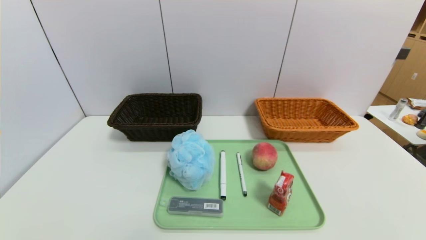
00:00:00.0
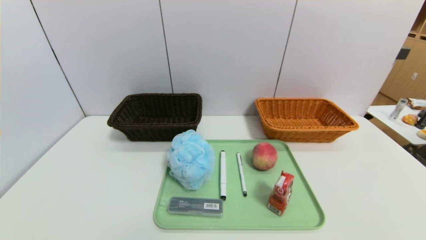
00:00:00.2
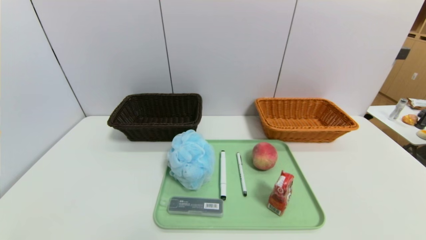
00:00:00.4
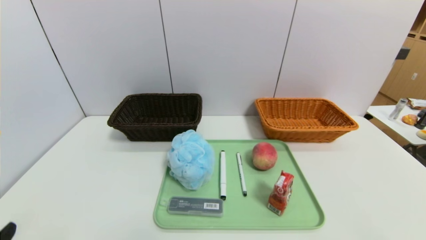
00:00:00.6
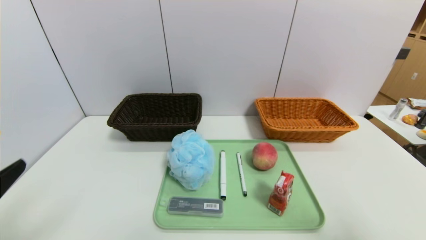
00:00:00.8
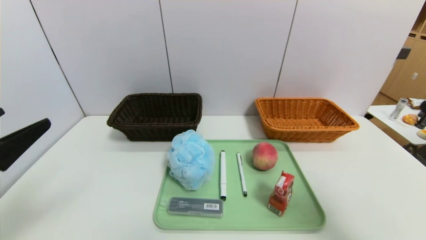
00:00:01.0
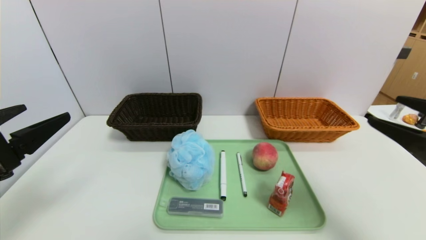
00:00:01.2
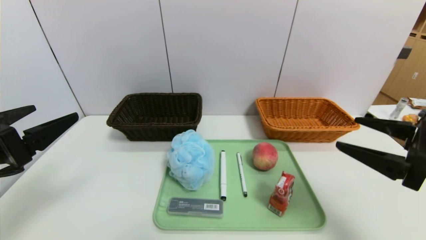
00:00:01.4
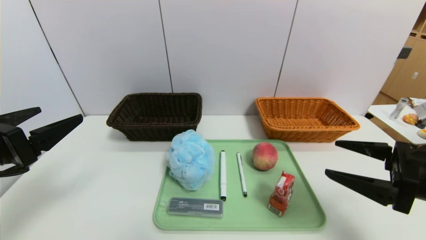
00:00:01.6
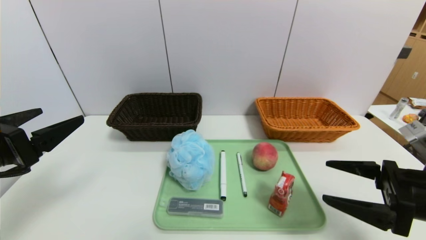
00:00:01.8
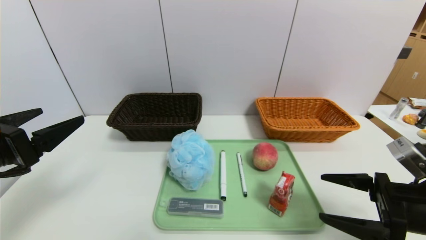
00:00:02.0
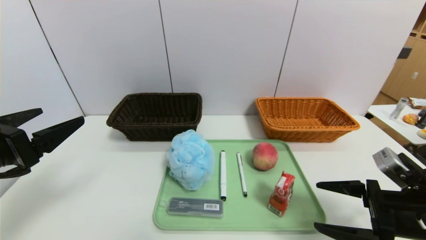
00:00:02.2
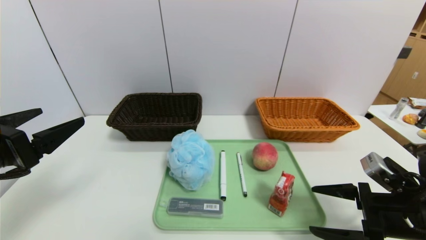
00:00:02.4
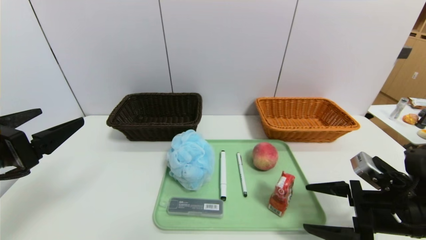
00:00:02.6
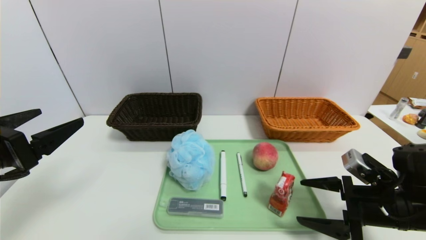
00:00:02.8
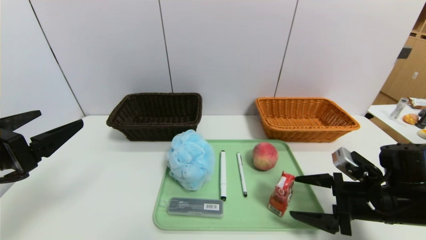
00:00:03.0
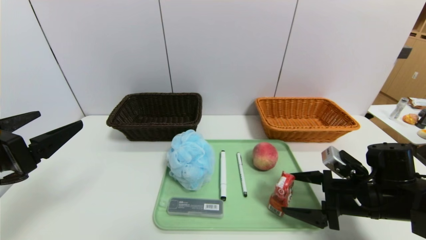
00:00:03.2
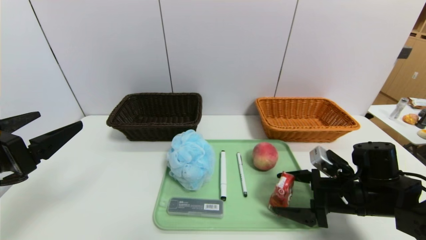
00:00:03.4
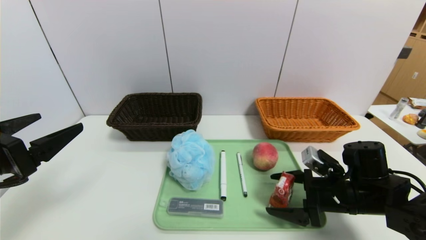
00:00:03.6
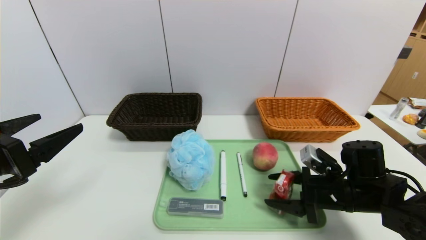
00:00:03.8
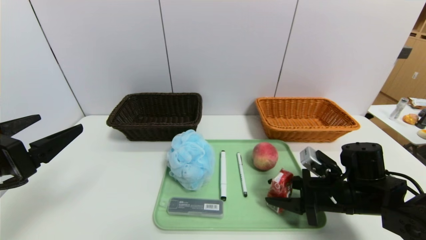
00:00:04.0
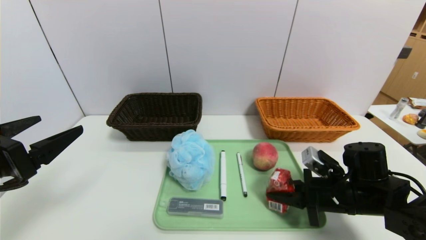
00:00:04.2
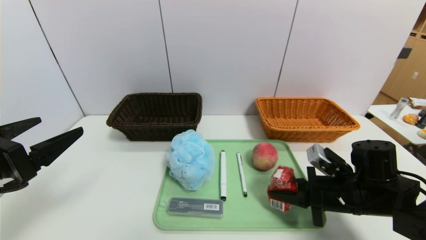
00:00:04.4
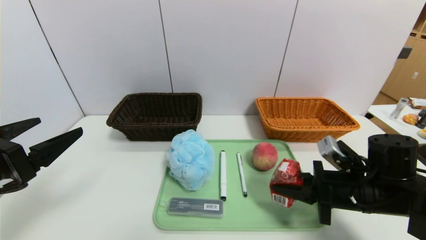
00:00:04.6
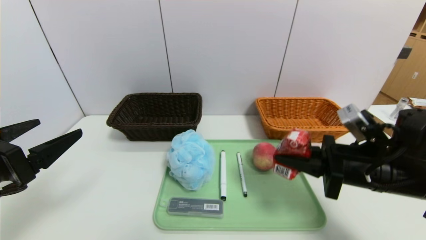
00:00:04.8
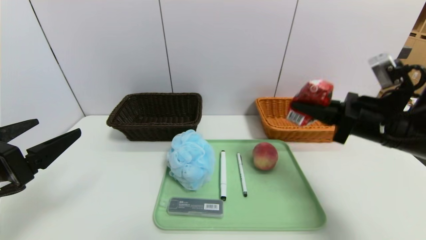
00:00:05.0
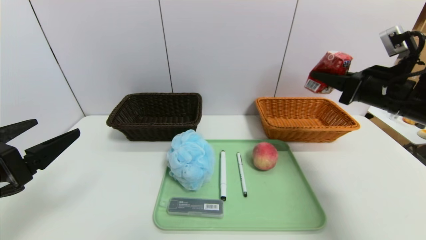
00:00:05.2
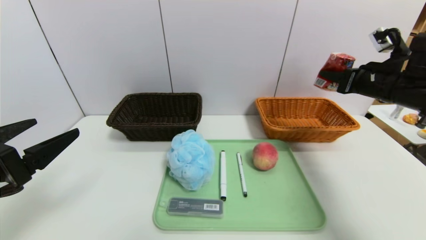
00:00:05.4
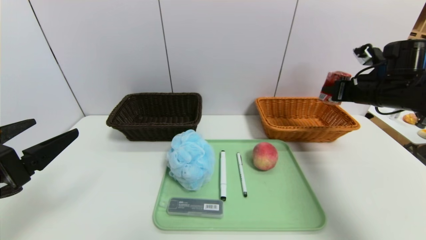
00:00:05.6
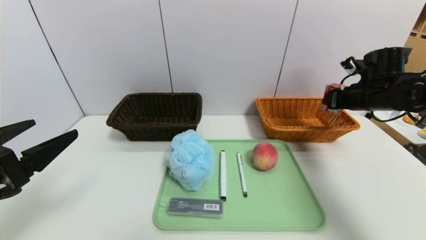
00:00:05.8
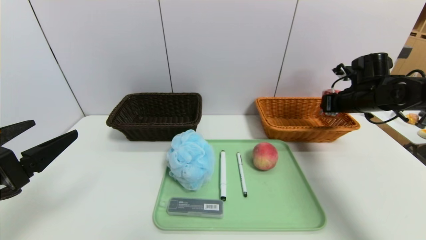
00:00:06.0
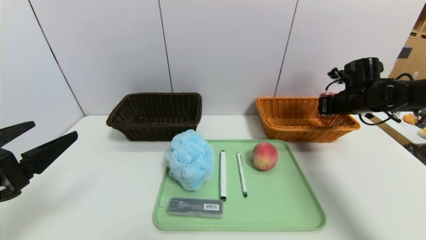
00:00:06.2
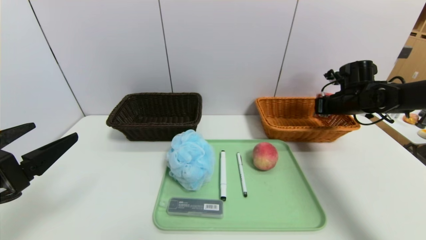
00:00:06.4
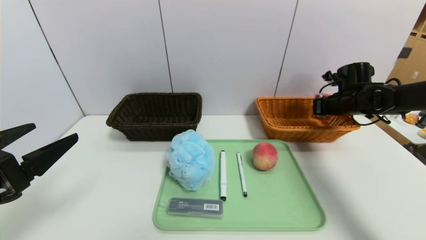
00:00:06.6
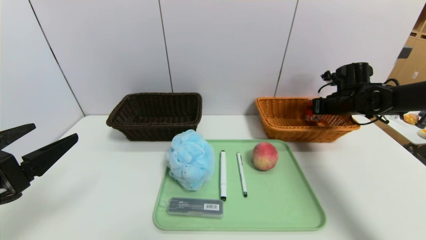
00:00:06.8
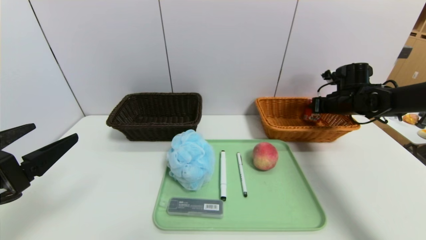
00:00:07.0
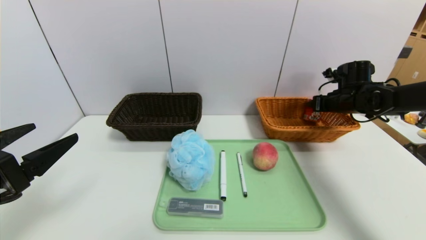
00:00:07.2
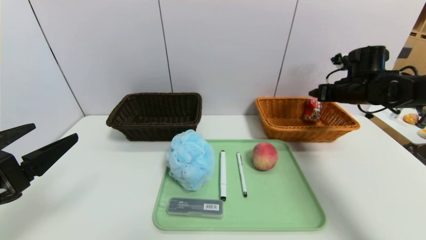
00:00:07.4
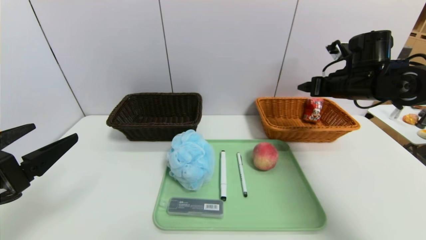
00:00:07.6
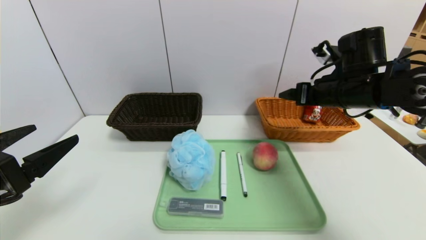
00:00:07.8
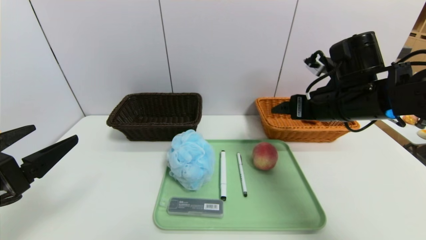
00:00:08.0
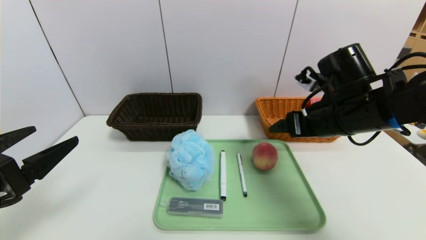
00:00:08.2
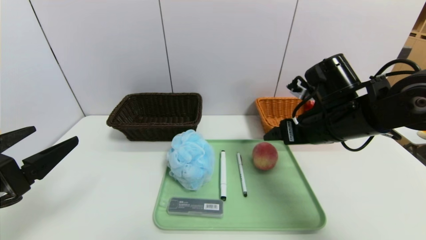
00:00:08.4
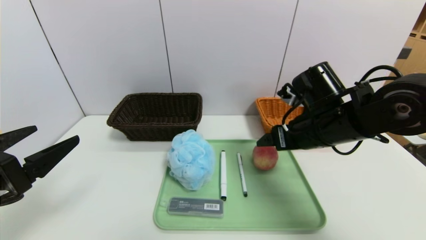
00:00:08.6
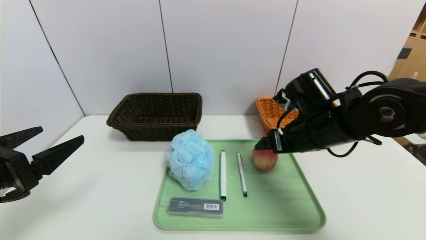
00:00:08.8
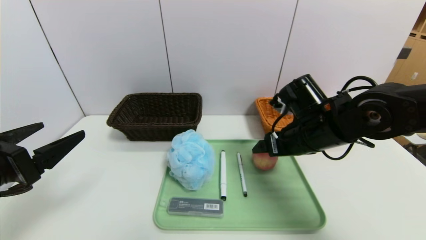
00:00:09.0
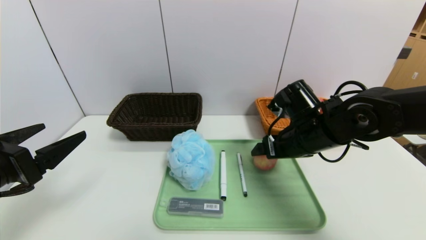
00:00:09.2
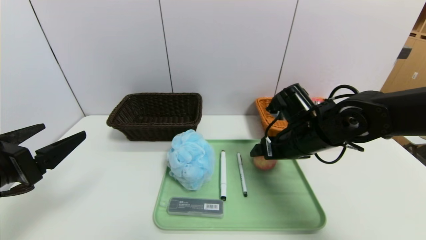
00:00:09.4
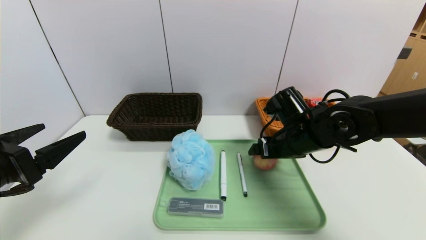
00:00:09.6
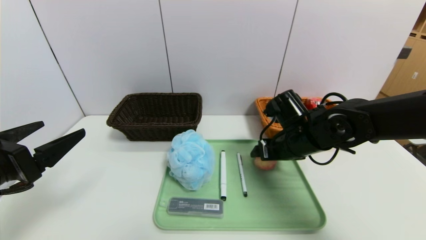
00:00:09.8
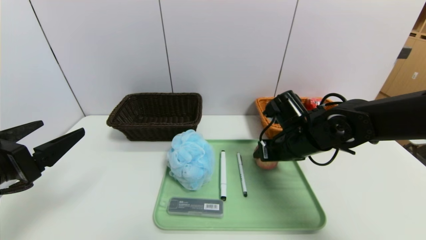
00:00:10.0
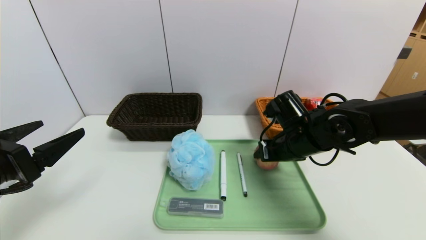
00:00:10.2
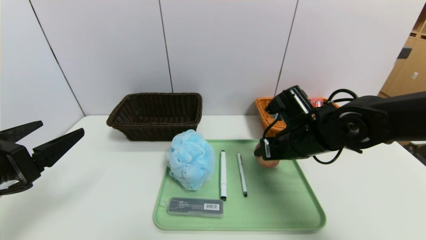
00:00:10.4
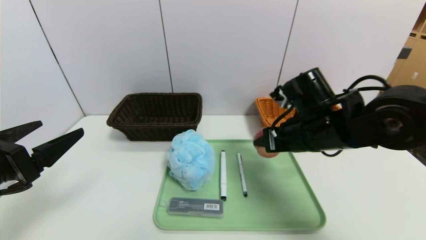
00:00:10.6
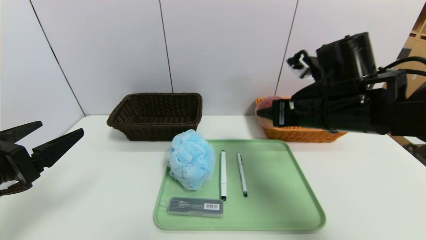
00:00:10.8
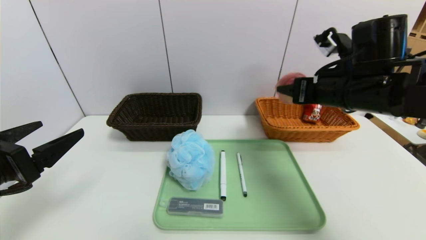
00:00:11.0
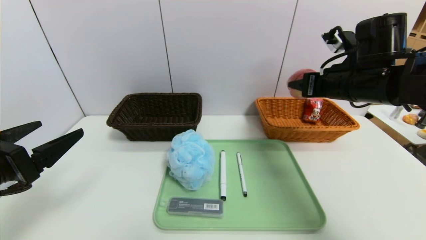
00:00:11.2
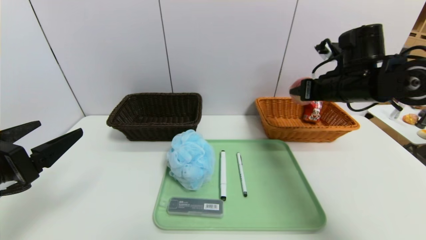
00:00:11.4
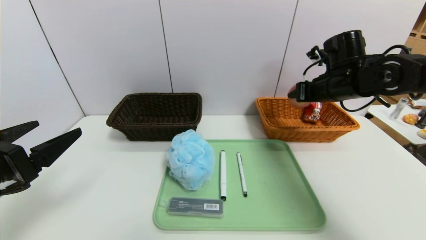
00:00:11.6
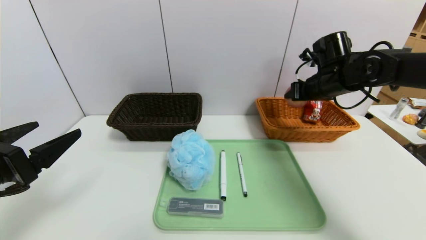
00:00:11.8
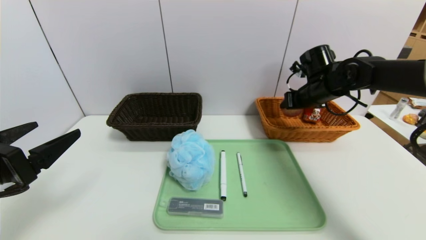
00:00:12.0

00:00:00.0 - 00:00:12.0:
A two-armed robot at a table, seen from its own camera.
Task of the whole recording: place the food in the right basket with the right gripper, and place the non food items in the left basket with the left gripper.
Step, 00:00:00.0 - 00:00:07.6: Grasp the ad milk and put it in the right basket.
00:00:00.0 - 00:00:01.6: The left gripper travels upward and forward by about 25 cm, while the right gripper travels forward and upward by roughly 20 cm.
00:00:01.6 - 00:00:03.0: The right gripper is displaced downward by approximately 10 cm.
00:00:03.0 - 00:00:04.4: The right gripper closes its fingers.
00:00:04.4 - 00:00:06.0: The right gripper is displaced forward, upward and to the right by some 25 cm.
00:00:06.0 - 00:00:07.6: The right gripper goes some 5 cm to the left, and opens its fingers.
00:00:07.6 - 00:00:09.0: The right gripper moves to the left, backward and downward, about 15 cm.
00:00:09.0 - 00:00:10.4: The right gripper closes up.
00:00:10.4 - 00:00:12.0: The right gripper travels forward and to the right by roughly 15 cm.

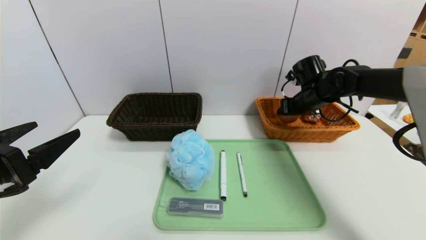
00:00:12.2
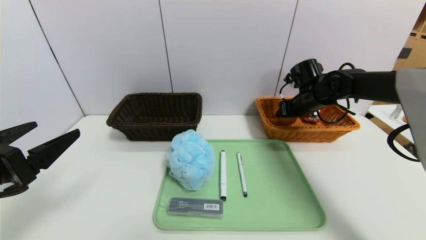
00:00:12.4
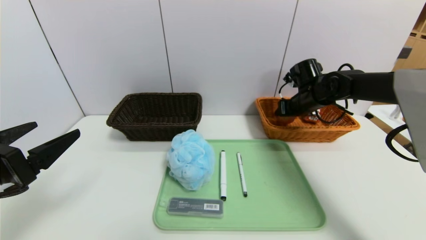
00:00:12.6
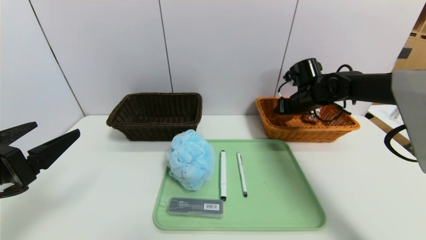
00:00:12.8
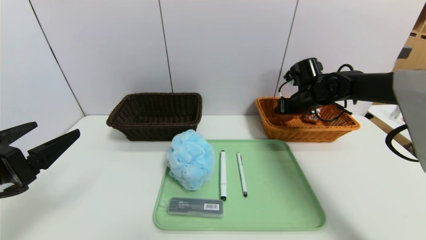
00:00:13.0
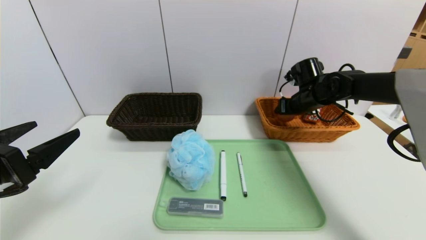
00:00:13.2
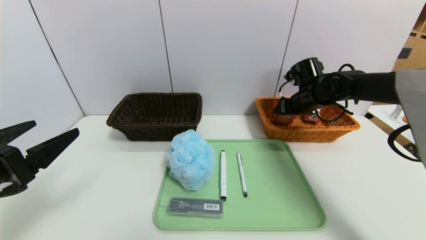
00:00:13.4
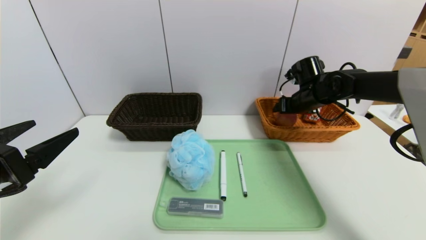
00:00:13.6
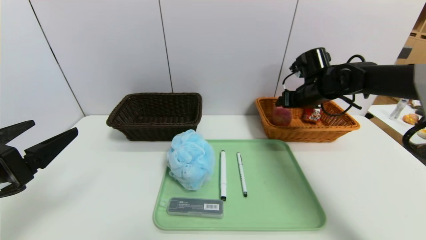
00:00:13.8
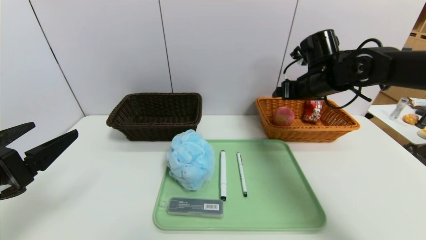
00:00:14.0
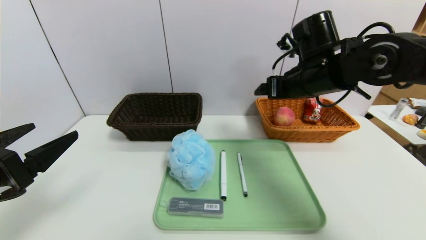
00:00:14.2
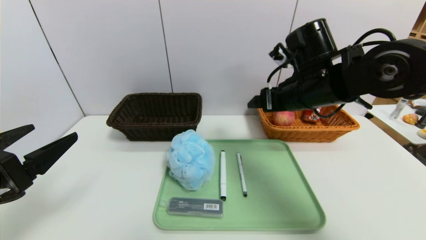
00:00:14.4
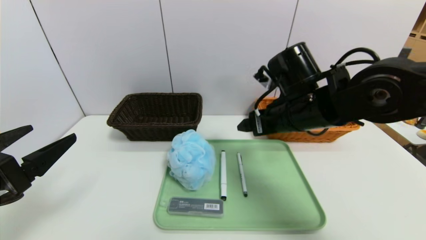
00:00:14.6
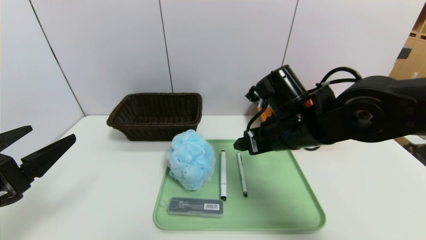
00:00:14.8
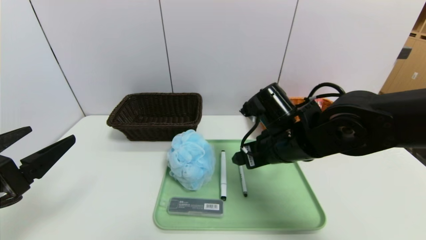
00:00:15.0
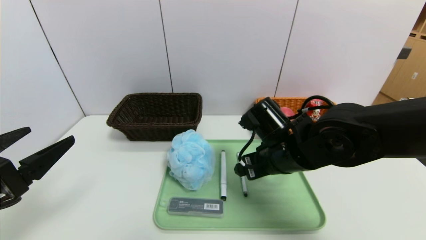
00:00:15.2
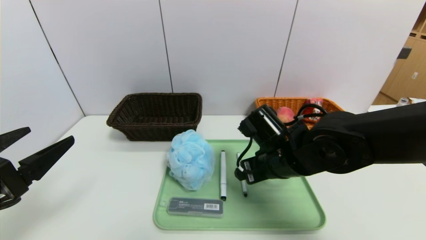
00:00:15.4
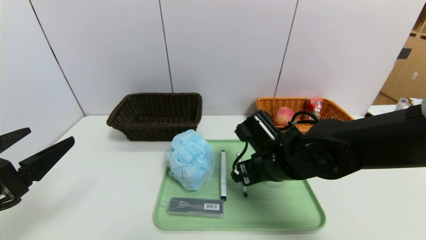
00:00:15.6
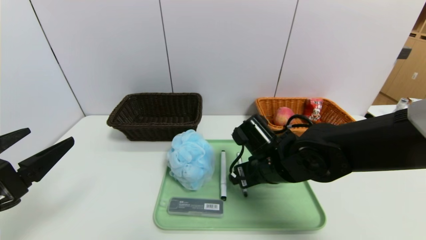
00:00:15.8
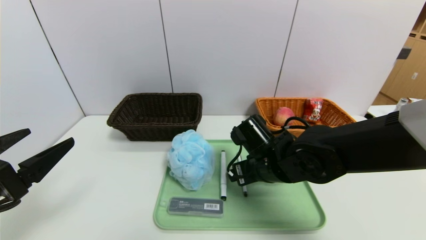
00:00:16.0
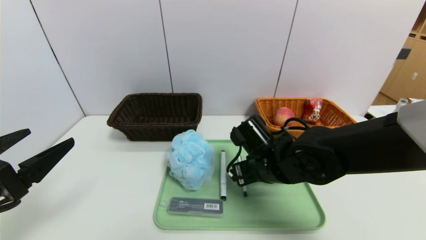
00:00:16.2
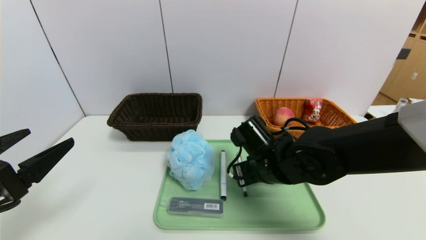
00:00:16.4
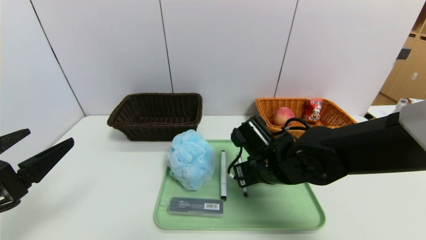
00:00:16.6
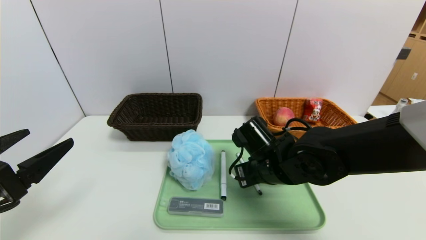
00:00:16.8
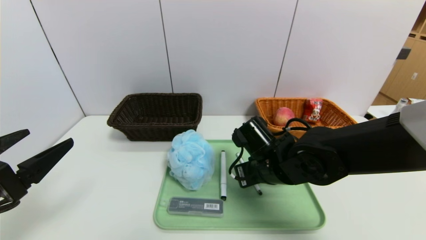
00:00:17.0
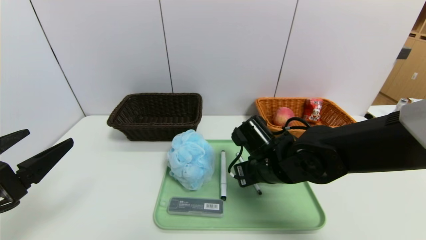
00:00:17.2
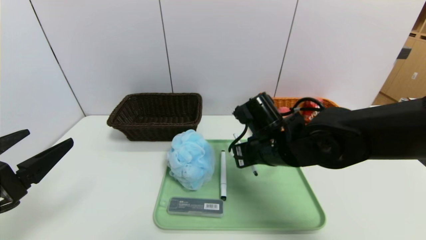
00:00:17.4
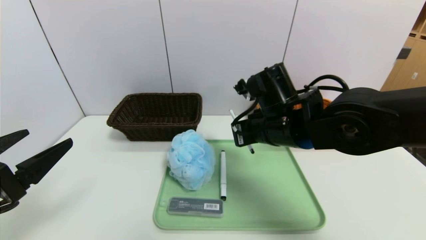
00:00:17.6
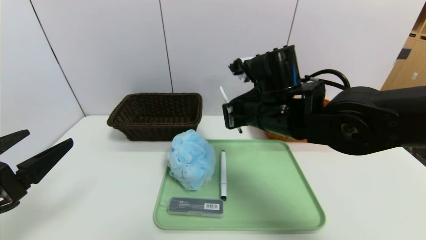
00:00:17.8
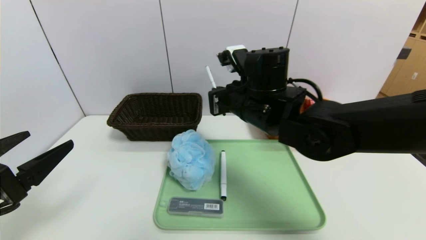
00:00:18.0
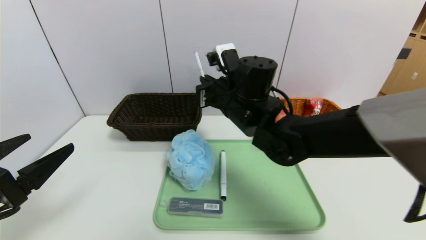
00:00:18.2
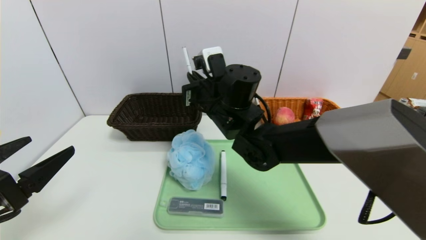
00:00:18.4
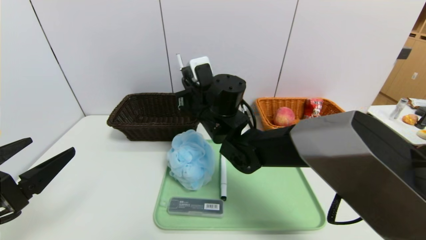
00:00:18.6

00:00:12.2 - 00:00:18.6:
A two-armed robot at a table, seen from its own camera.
Task of the whole recording: place the food in the right basket with the right gripper, and place the non food items in the left basket with the left gripper.
00:00:12.2 - 00:00:13.8: The grippers stay close to where they were, moving slightly.
00:00:13.8 - 00:00:15.4: The right gripper travels backward and to the left by roughly 20 cm.
00:00:15.4 - 00:00:17.0: The right gripper closes up.
00:00:17.0 - 00:00:18.6: The right gripper travels to the left, upward and forward by approximately 15 cm.
